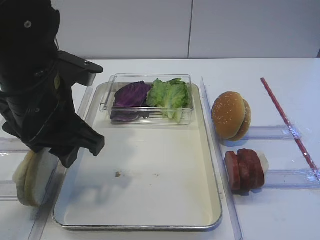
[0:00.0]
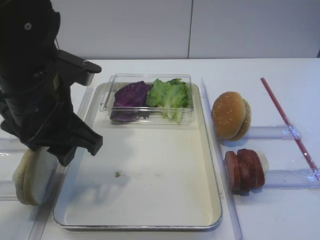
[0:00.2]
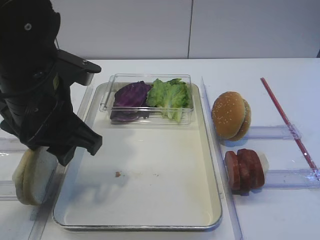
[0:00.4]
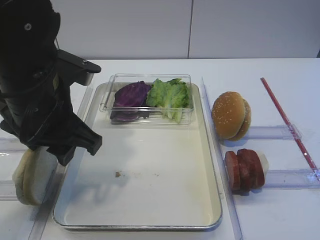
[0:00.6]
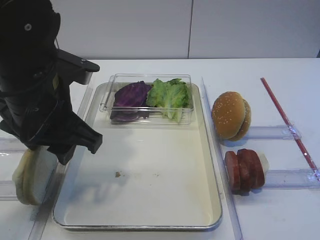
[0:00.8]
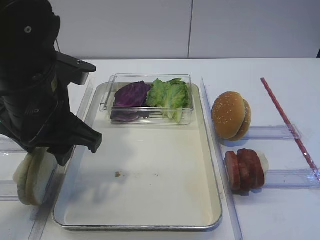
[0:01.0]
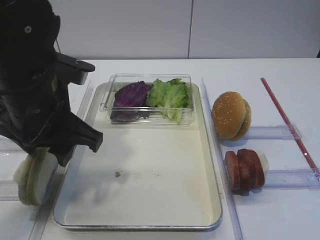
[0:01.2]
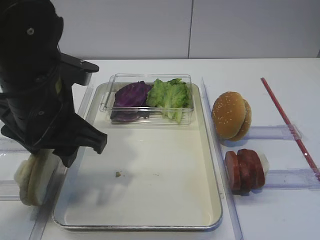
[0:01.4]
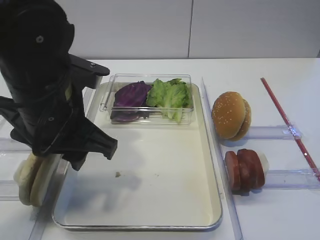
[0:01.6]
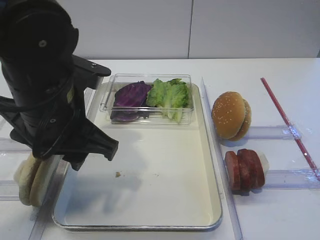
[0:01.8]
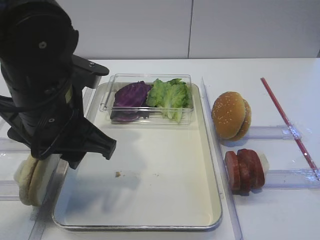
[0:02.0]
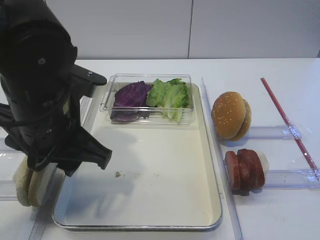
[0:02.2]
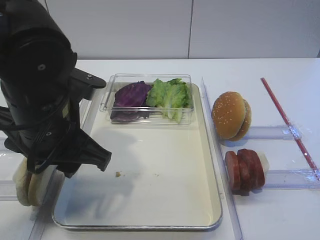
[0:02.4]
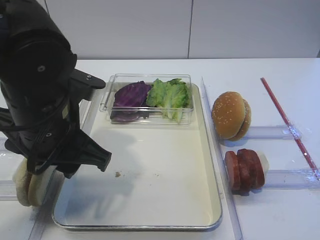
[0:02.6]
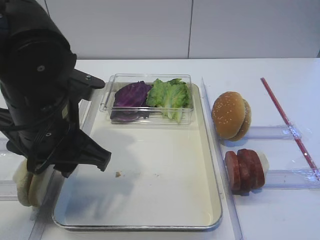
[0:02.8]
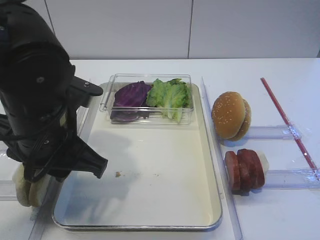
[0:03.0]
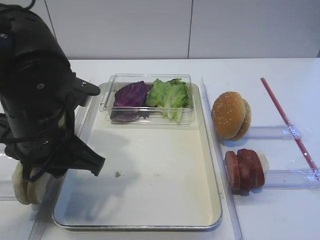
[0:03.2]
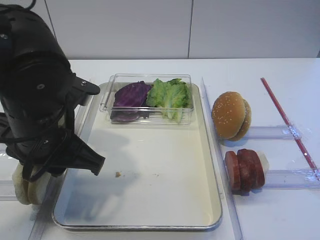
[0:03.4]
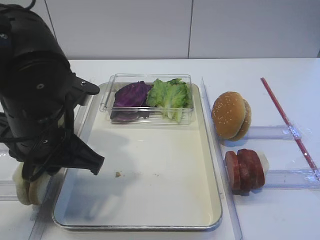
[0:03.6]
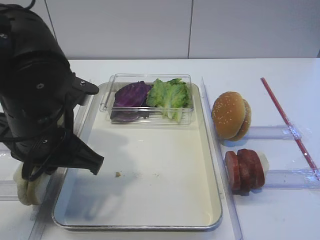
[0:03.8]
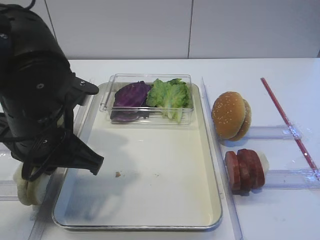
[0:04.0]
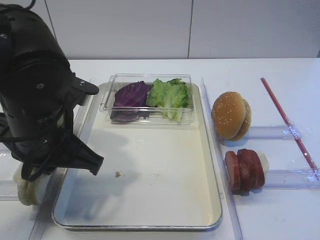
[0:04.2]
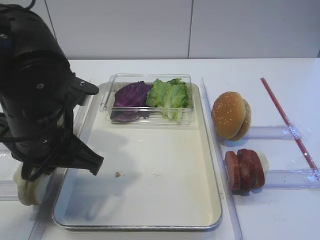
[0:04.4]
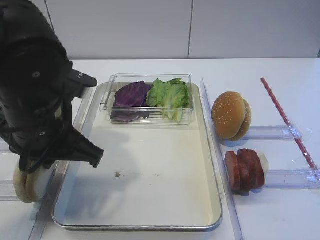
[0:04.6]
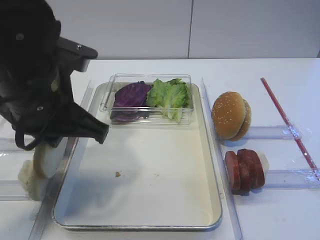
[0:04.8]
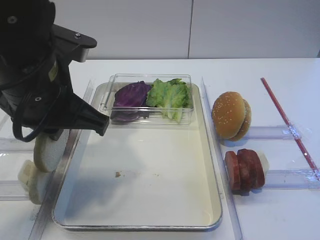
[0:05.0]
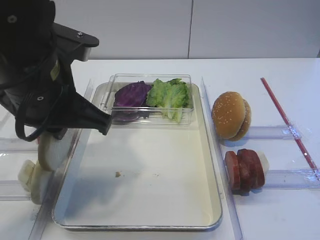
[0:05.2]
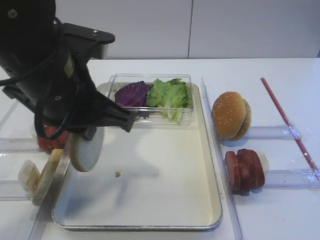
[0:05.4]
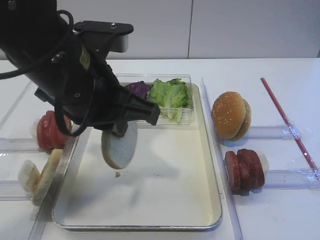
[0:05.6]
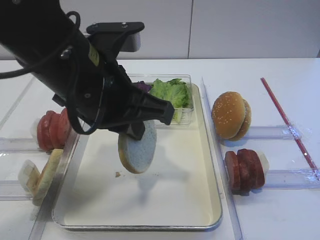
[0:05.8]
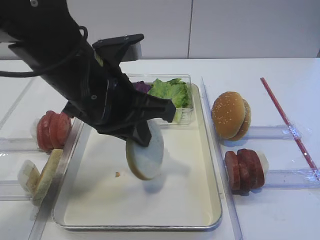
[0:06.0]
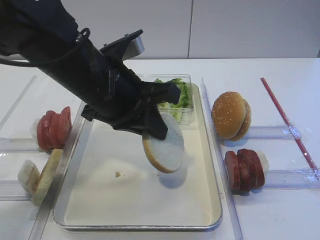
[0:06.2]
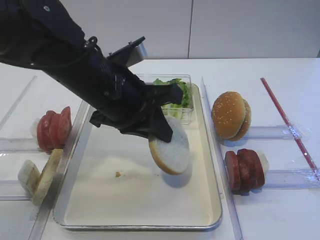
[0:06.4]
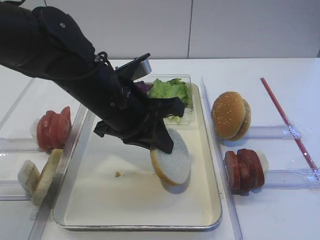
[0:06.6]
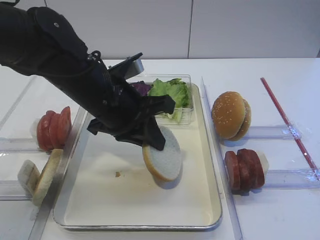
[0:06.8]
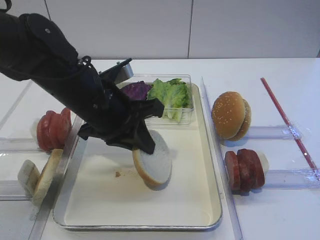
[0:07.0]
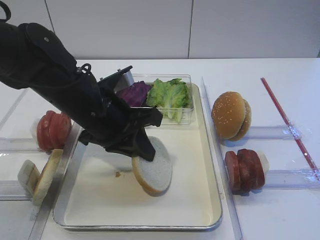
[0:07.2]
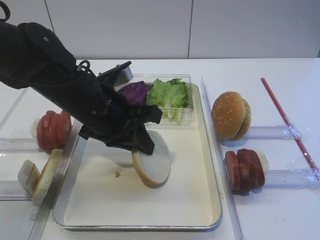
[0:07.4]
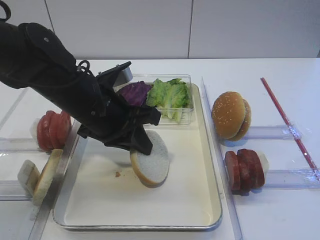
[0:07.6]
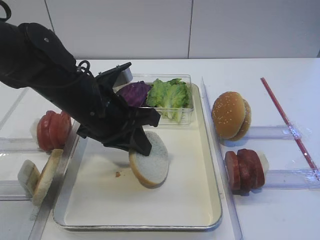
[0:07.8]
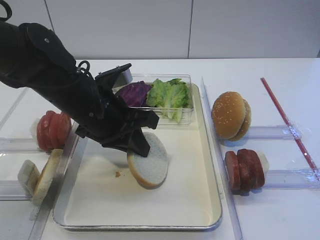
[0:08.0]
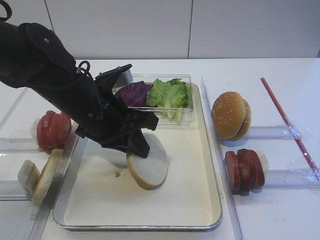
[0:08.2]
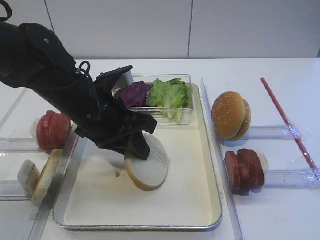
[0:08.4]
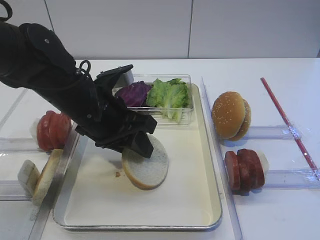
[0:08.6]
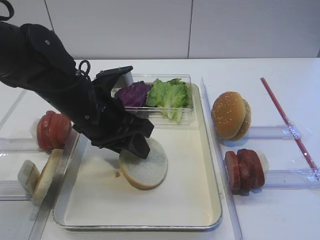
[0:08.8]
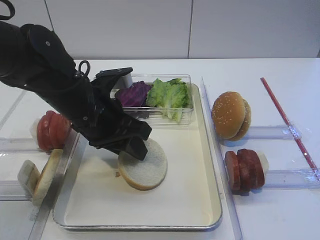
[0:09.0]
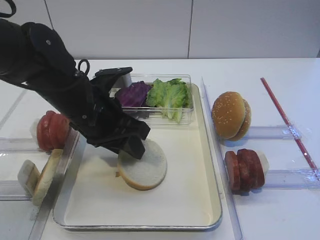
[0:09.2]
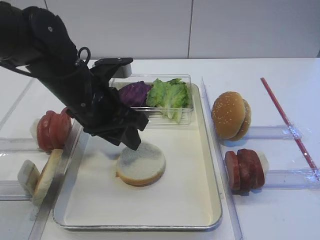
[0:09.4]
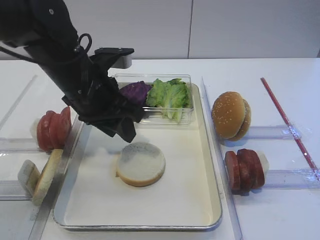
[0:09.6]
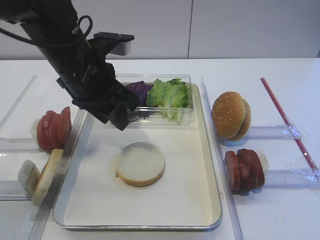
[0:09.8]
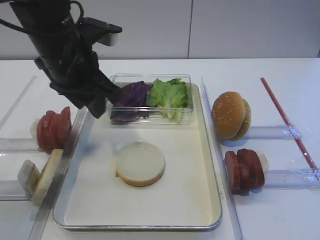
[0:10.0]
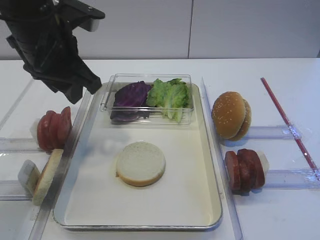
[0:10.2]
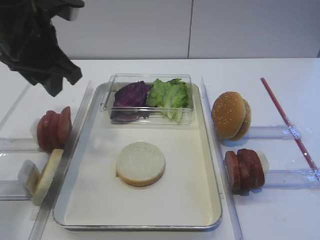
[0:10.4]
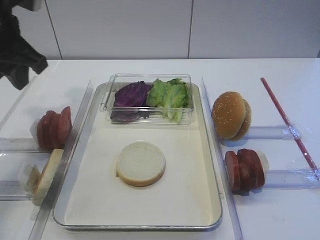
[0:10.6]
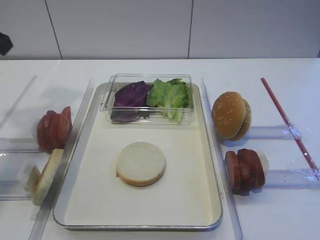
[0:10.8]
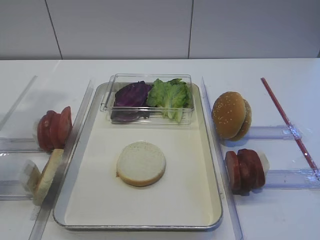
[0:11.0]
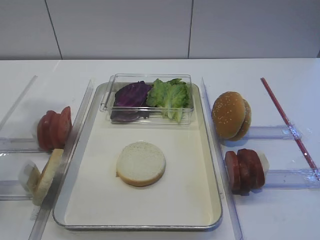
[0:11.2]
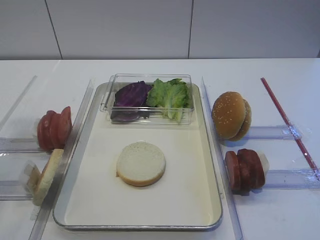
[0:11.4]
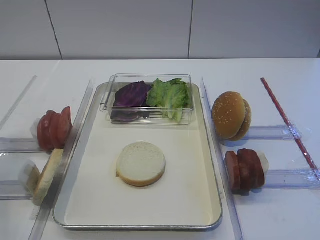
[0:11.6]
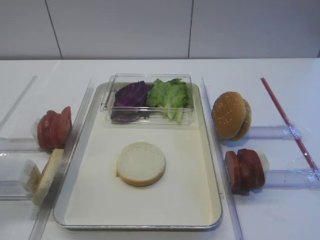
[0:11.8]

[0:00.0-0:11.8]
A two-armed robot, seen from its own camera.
Step, 0:00.0 to 0:05.0: Pick up the bread slice with the left gripper.
Step, 0:05.2 to 0:09.6: Place the bread slice on the tray with the left gripper.
0:00.0 to 0:03.0: The grippers make only small movements.
0:03.0 to 0:04.4: The left gripper closes its fingers.
0:04.4 to 0:06.0: The left gripper shifts roughly 5 cm to the right.
0:06.0 to 0:07.4: The left gripper is displaced downward by approximately 5 cm.
0:07.4 to 0:08.8: The left gripper opens up.
0:08.8 to 0:10.4: The left gripper travels upward and to the left by some 15 cm.
0:10.4 to 0:11.8: The left gripper shifts approximately 25 cm backward and to the left.

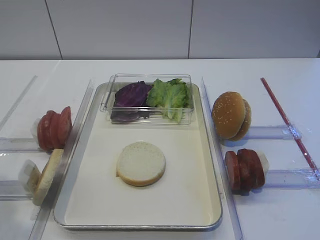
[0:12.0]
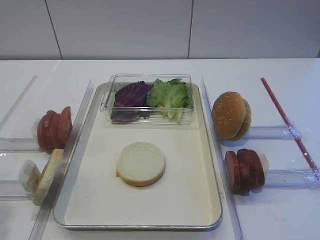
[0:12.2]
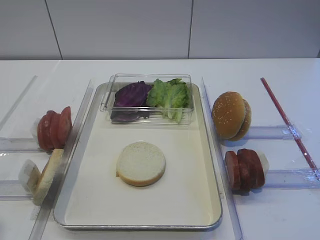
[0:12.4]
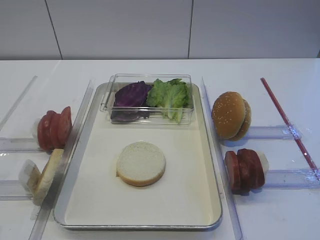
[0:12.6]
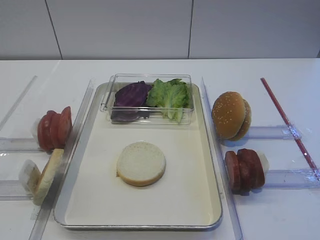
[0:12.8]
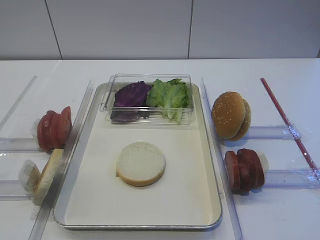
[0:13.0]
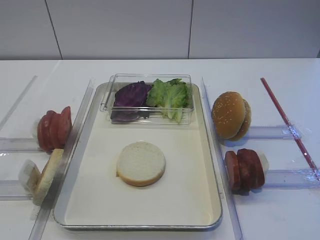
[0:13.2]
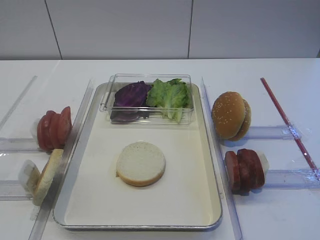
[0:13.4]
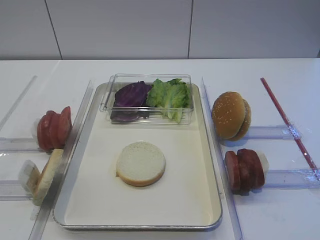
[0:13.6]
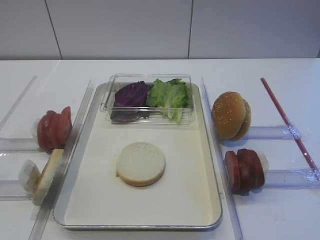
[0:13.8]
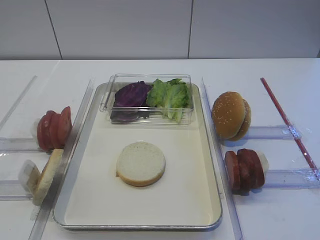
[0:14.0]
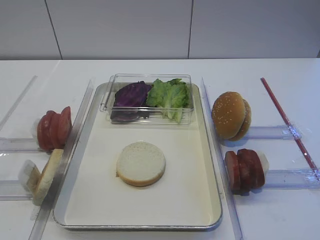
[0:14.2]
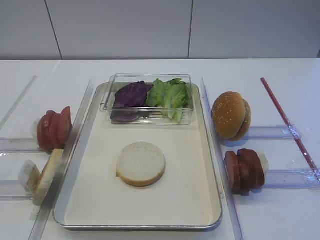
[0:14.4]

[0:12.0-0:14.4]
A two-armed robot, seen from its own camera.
0:12.0 to 0:13.2: The left gripper shifts some 10 cm backward and downward.
0:13.2 to 0:14.4: Both grippers stay put.

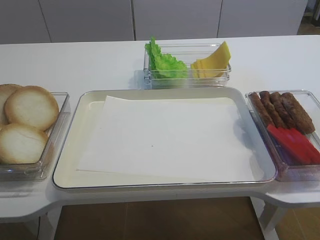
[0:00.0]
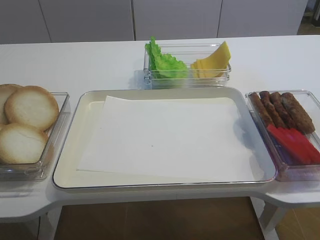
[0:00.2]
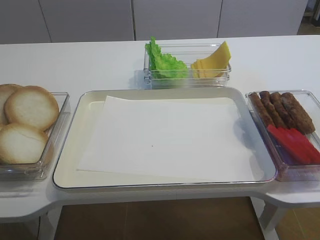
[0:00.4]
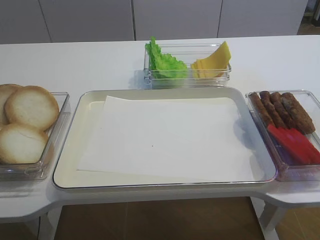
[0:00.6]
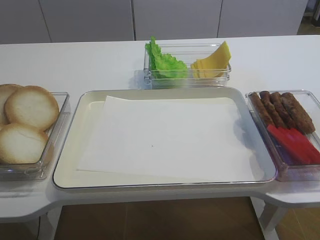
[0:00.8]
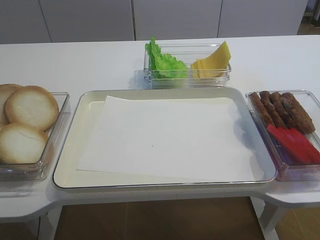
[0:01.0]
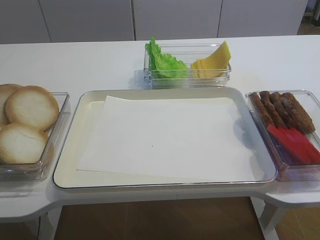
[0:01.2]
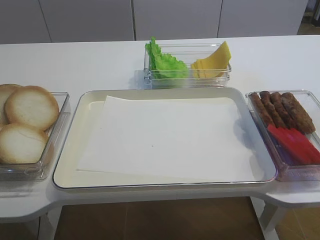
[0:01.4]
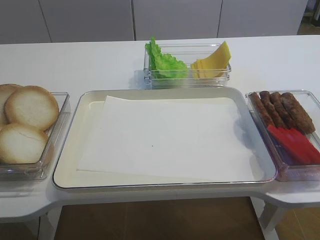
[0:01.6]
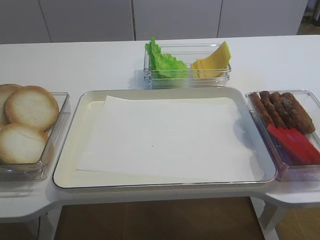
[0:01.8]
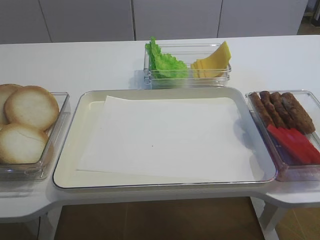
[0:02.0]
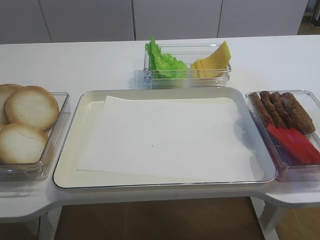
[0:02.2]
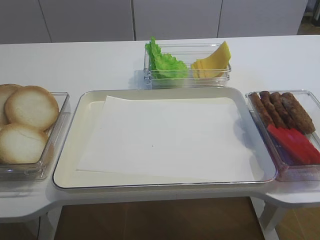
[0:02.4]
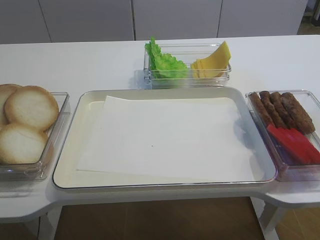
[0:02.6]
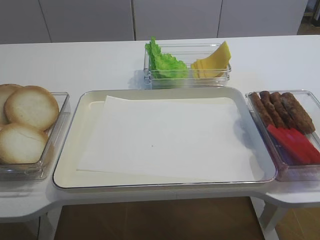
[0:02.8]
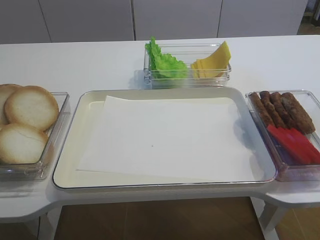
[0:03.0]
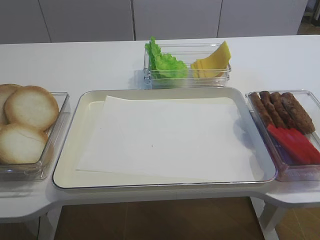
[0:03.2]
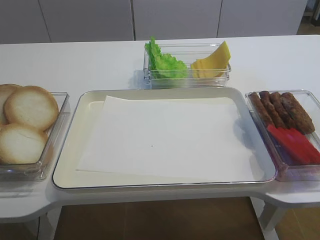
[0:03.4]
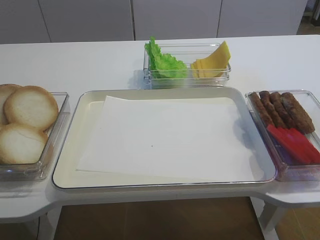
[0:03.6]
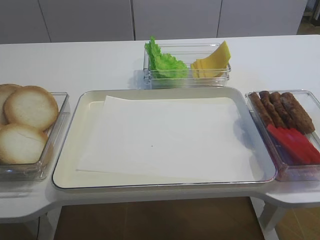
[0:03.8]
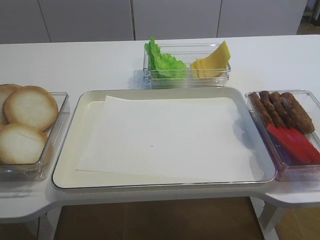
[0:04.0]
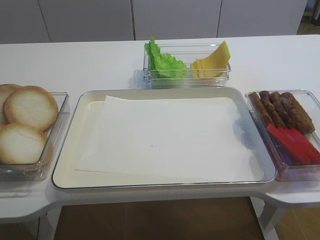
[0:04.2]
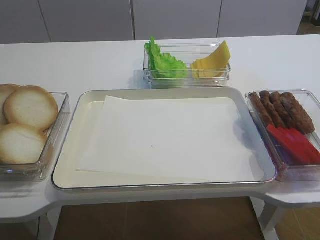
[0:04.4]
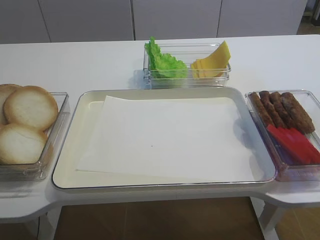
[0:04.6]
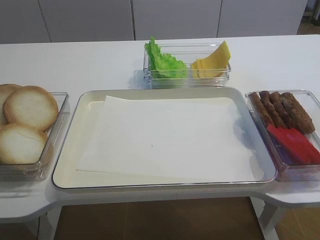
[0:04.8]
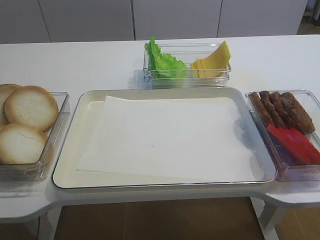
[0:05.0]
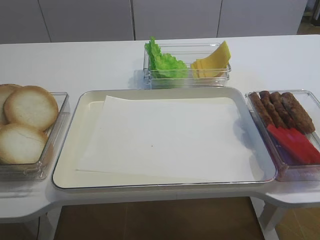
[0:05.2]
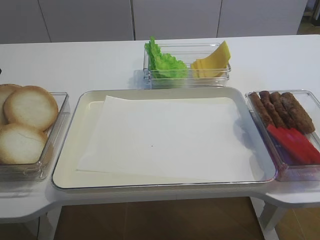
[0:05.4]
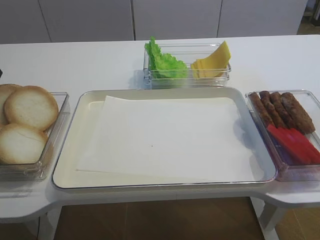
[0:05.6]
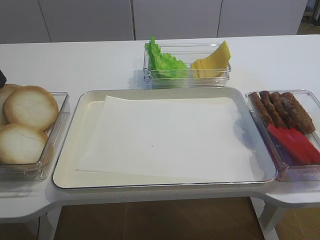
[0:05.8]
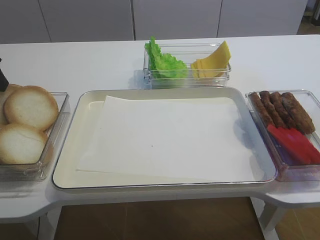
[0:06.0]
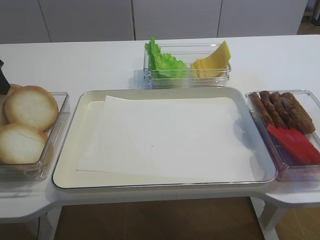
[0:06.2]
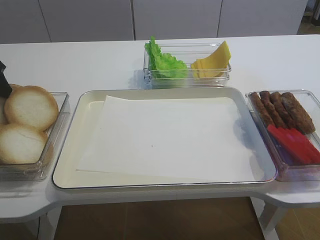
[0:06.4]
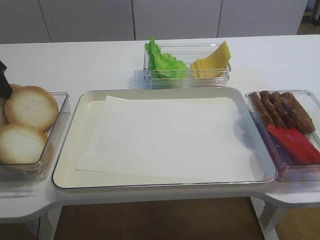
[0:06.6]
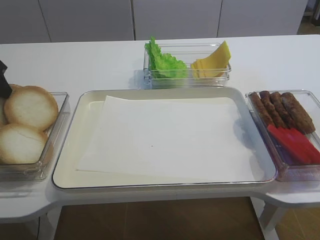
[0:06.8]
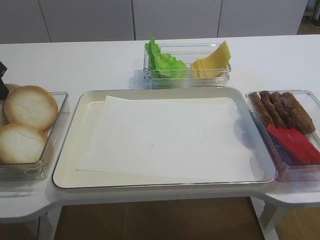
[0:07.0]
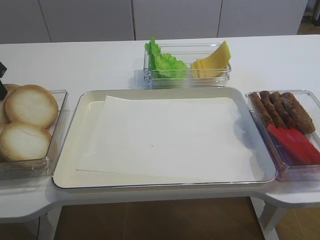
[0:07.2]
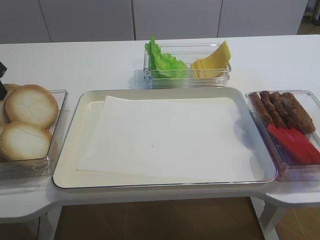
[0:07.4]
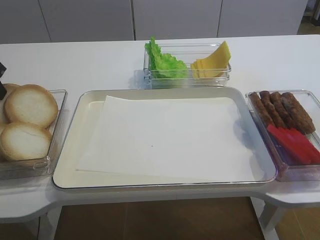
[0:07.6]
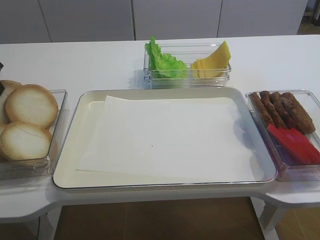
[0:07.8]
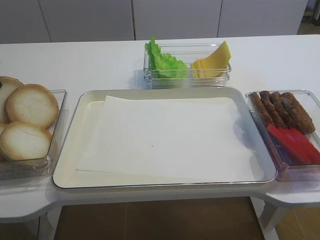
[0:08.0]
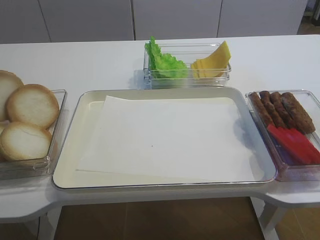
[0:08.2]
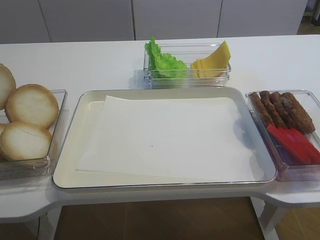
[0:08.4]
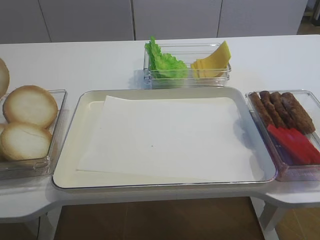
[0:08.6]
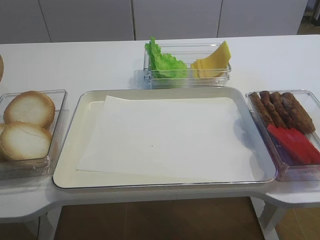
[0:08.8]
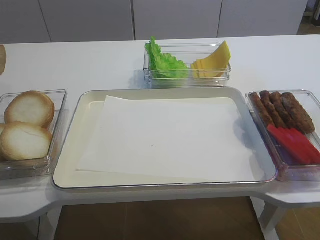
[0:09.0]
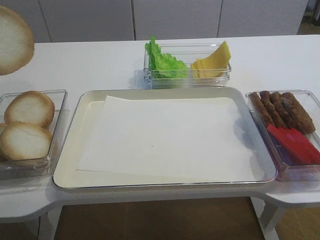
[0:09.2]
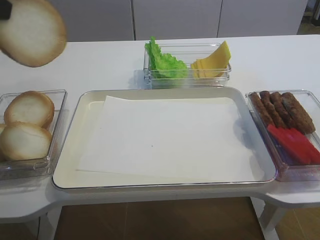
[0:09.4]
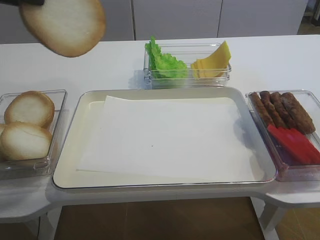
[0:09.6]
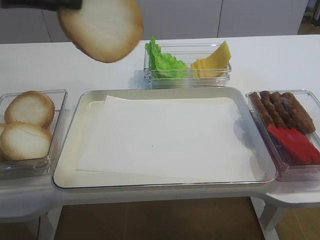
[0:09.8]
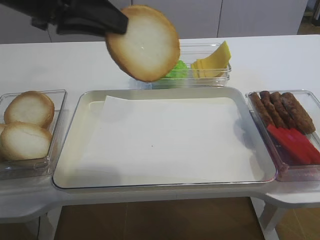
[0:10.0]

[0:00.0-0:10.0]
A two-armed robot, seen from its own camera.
Step, 0:00.0 to 0:08.0: Pick up the bread slice with the left gripper.
0:05.8 to 0:07.2: The left gripper closes up.
0:07.2 to 0:08.6: The left gripper is displaced upward and backward by some 10 cm.
0:08.6 to 0:10.0: The left gripper is displaced to the right by some 15 cm.
